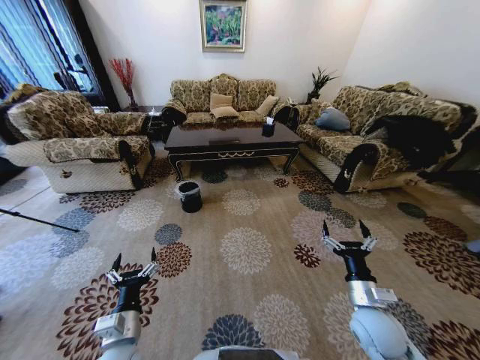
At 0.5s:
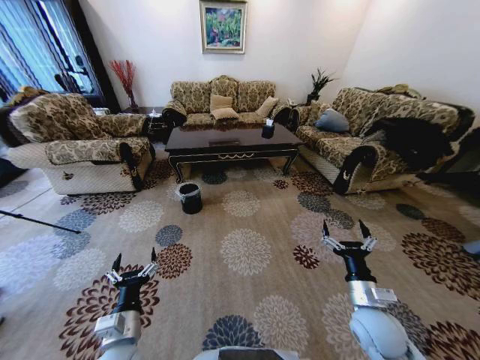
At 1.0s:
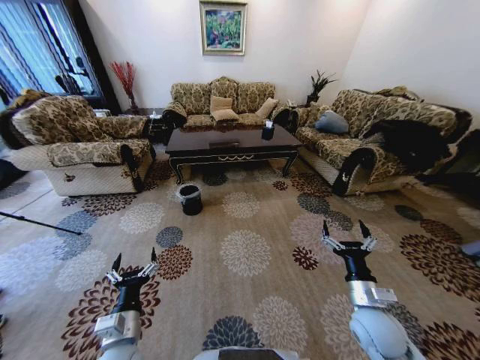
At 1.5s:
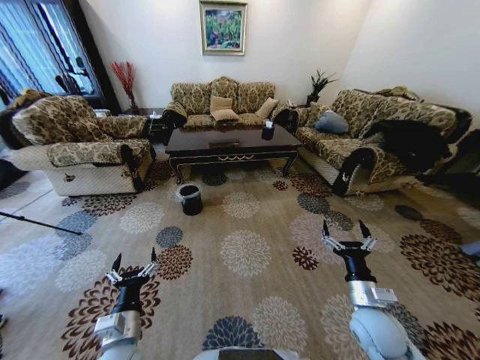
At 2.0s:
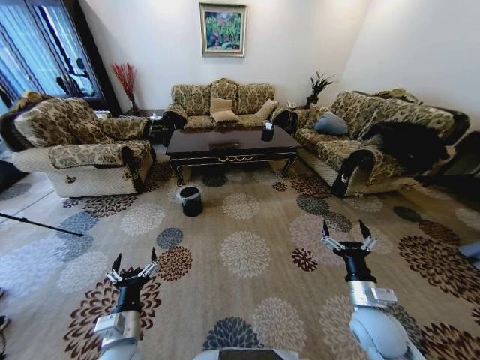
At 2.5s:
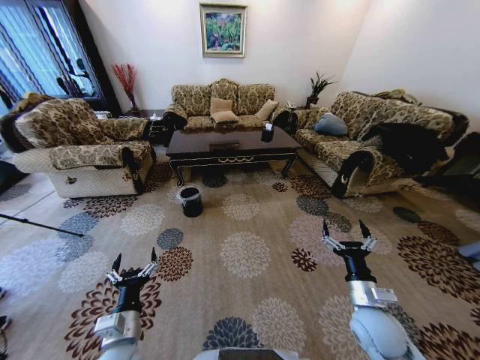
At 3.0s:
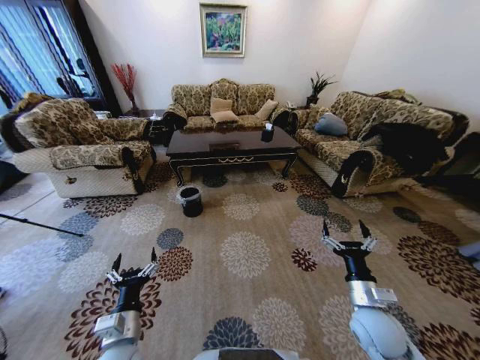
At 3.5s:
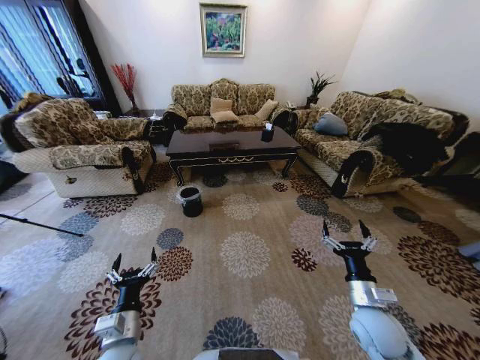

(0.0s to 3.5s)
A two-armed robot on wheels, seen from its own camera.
Task of the whole recording: Move to the front of the table and pick up the trash from the floor, then place it into the trash bin.
2.0s - 3.5s: Neither gripper changes place.
